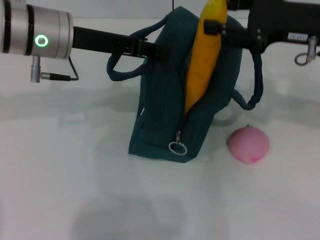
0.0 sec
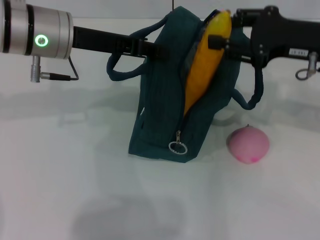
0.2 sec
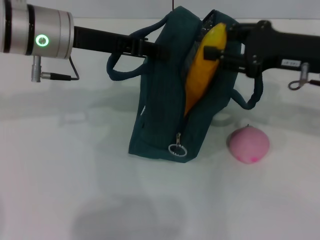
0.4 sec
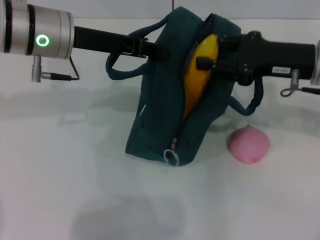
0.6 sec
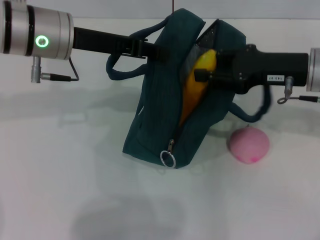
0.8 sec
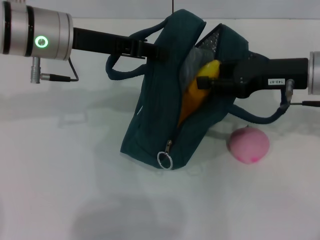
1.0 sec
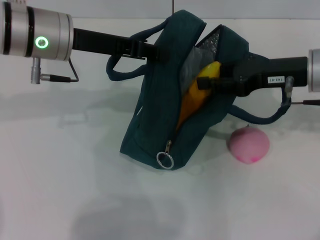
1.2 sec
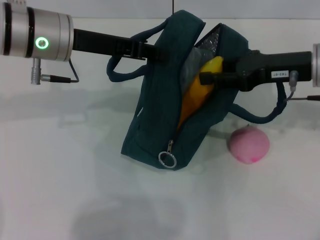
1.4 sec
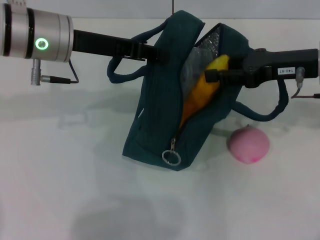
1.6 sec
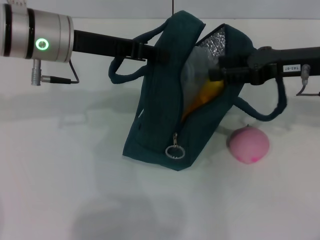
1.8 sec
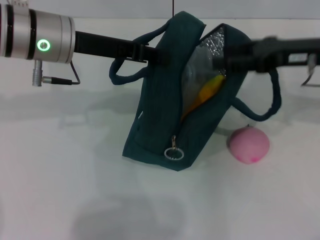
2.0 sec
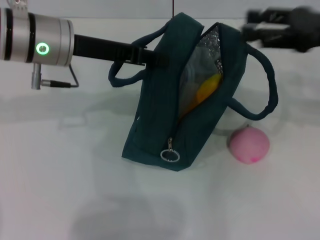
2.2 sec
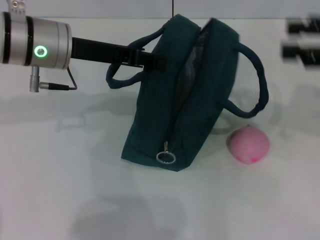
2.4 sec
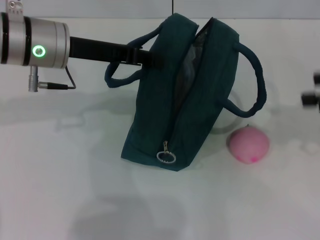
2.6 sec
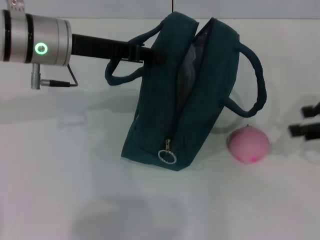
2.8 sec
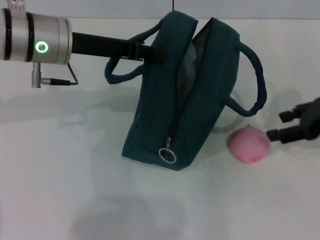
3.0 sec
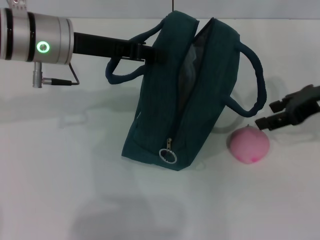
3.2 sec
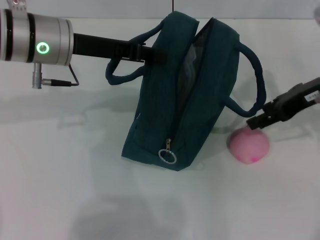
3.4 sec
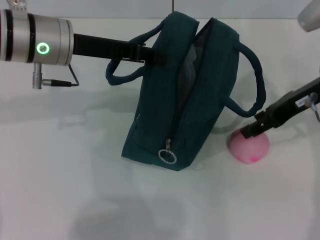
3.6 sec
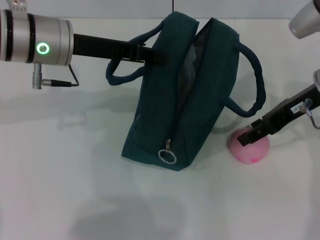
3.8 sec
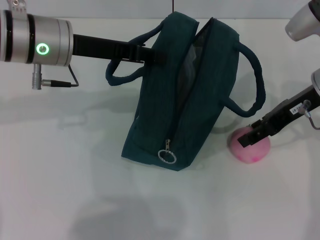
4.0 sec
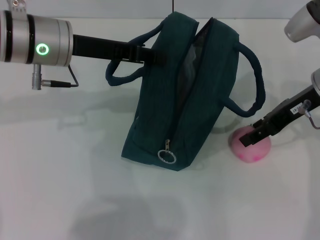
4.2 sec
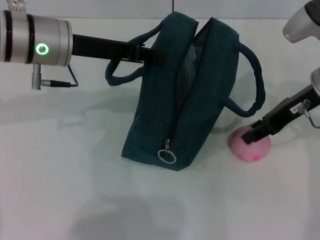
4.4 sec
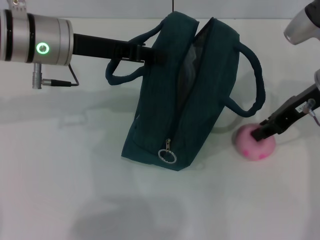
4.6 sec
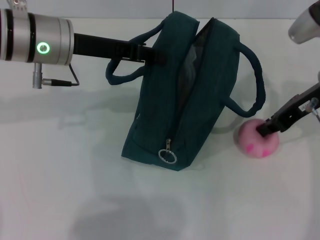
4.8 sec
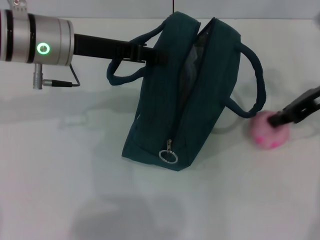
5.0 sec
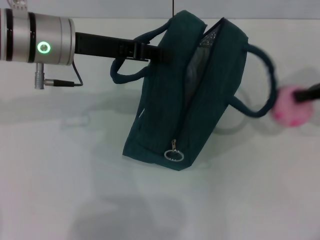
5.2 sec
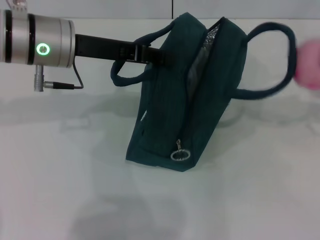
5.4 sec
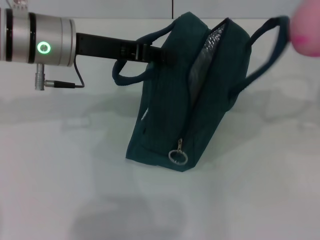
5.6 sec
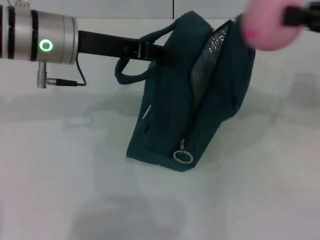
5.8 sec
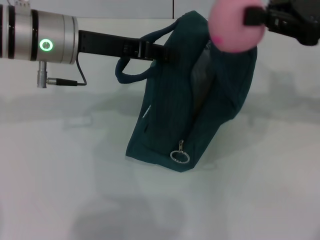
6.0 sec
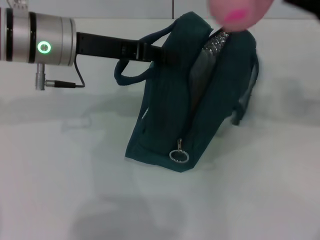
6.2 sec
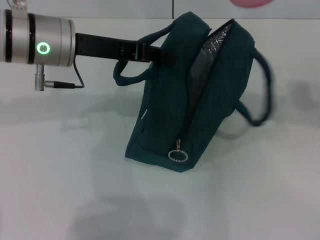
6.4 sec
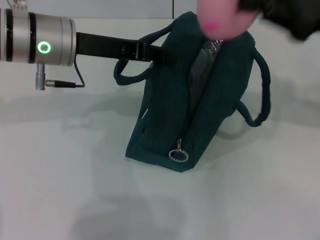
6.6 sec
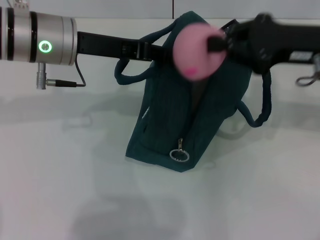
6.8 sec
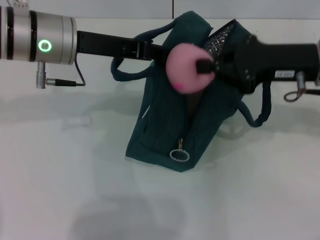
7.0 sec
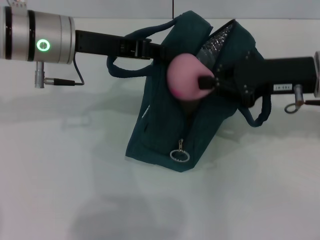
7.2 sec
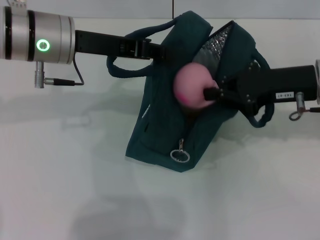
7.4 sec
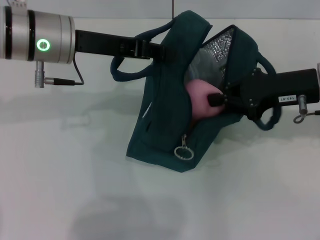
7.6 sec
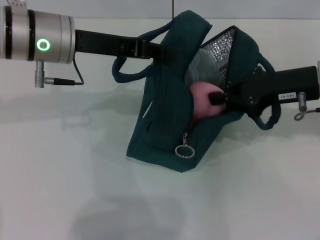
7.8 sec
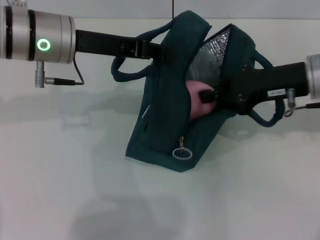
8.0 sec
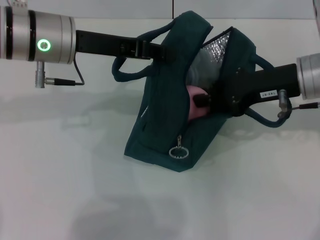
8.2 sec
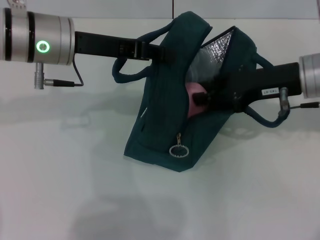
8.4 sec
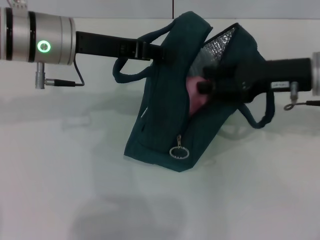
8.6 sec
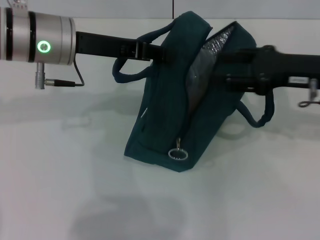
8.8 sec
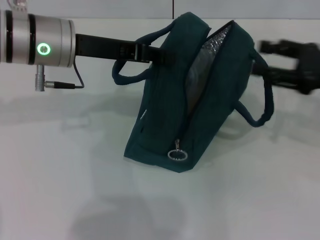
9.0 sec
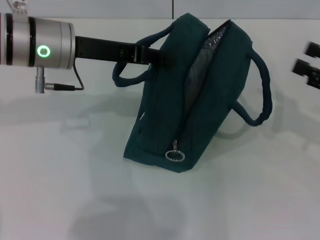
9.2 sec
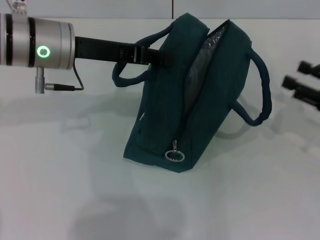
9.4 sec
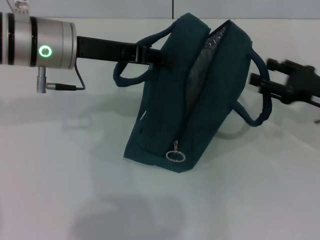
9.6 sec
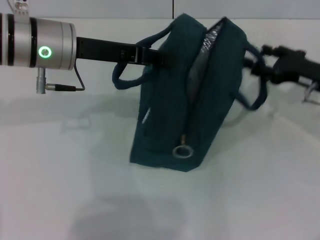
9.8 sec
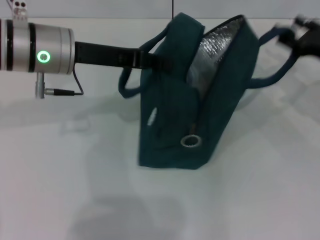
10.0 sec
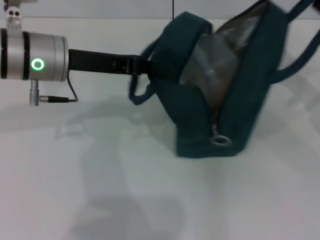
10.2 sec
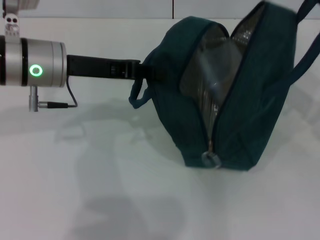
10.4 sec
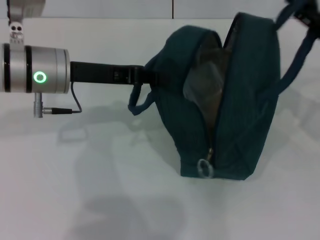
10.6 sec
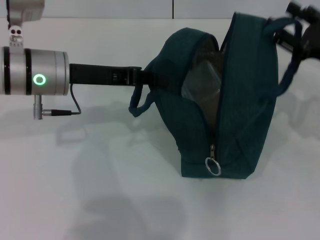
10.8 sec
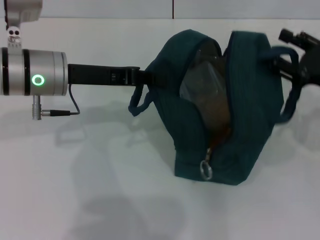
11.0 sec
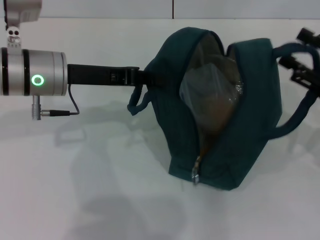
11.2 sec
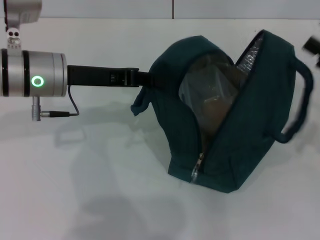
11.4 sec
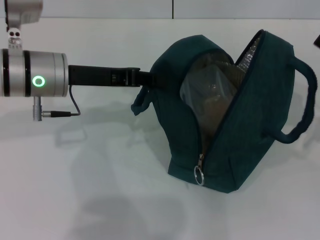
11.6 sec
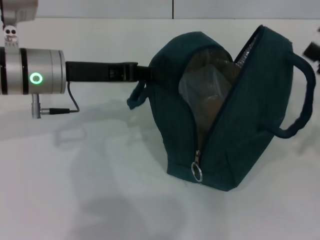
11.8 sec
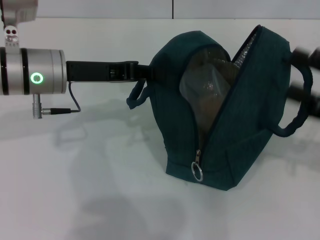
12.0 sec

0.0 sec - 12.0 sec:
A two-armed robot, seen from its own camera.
Step, 0.0 sec - 2.0 sec: Put the banana into the lunch bag with your right hand.
Step, 2.2 sec - 4.4 sec: Grab the peach with your right hand.
Step, 9.0 sec - 11.4 sec: Hold the lunch bag with your right hand.
1.6 sec - 3.0 sec: The right gripper goes roughly 5 cm to the right.
3.0 sec - 4.4 sec: The right gripper moves to the left, some 5 cm.
4.4 sec - 6.0 sec: The right gripper goes some 5 cm upward, moves about 15 cm to the right and comes back, and closes its fingers.
6.0 sec - 7.6 sec: The right gripper heads downward, covering some 10 cm.
7.6 sec - 9.0 sec: The right gripper travels to the right by some 5 cm, and opens.
9.0 sec - 10.4 sec: The right gripper reaches approximately 5 cm forward, then returns.
10.4 sec - 12.0 sec: The right gripper moves backward, some 5 cm.

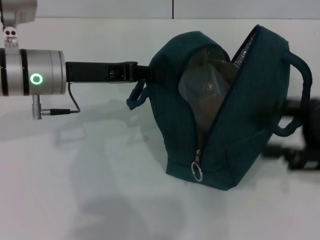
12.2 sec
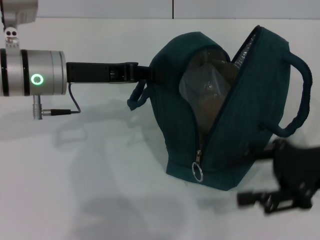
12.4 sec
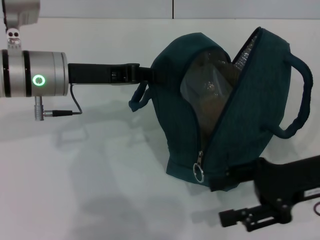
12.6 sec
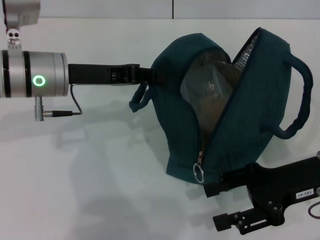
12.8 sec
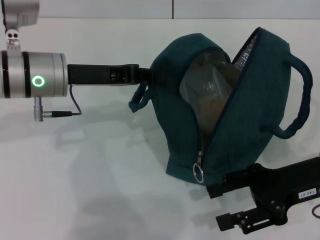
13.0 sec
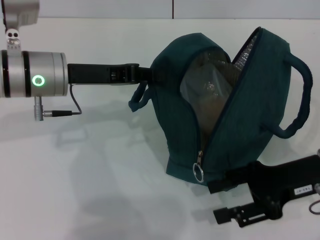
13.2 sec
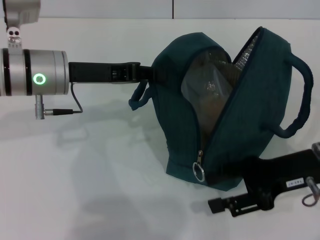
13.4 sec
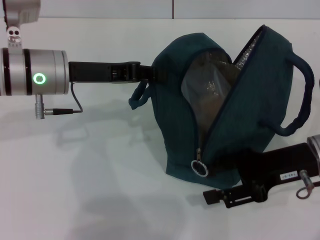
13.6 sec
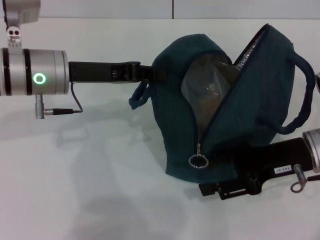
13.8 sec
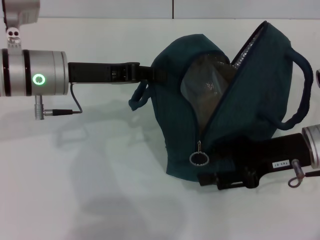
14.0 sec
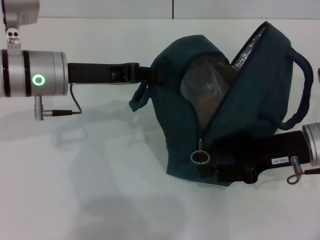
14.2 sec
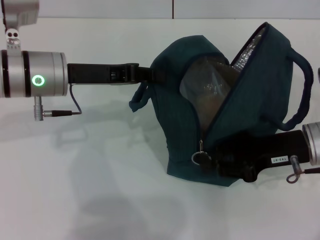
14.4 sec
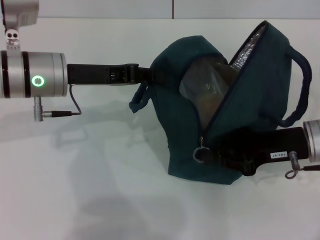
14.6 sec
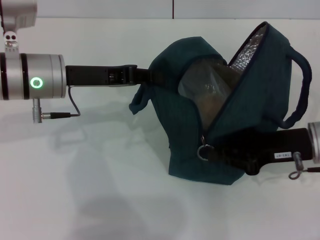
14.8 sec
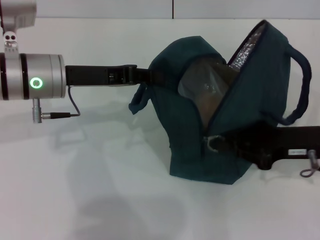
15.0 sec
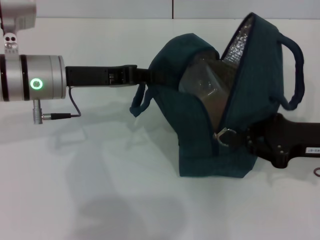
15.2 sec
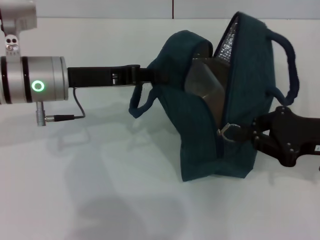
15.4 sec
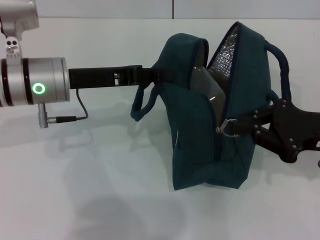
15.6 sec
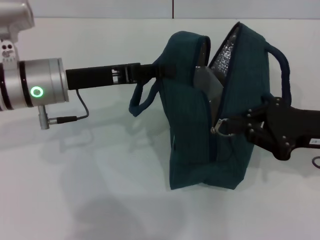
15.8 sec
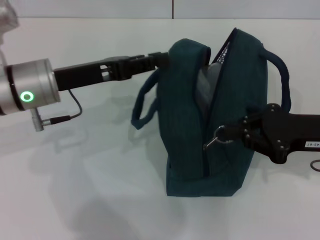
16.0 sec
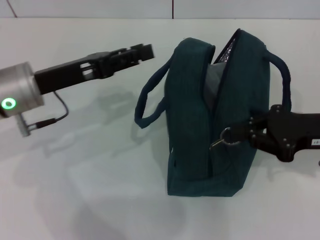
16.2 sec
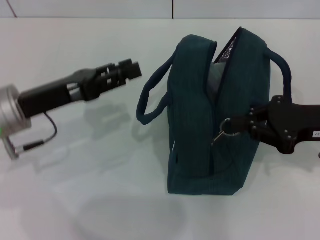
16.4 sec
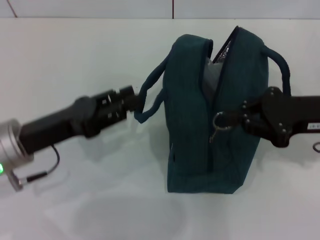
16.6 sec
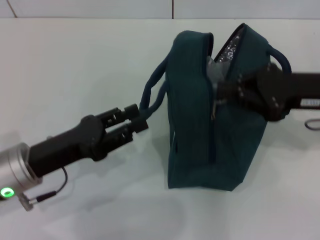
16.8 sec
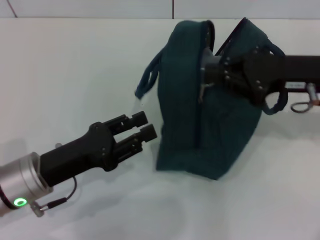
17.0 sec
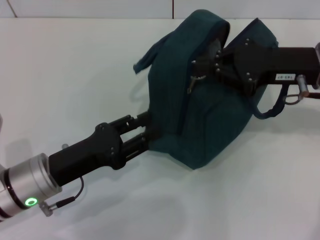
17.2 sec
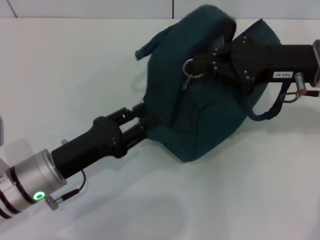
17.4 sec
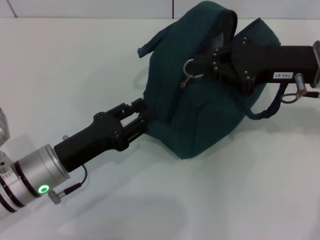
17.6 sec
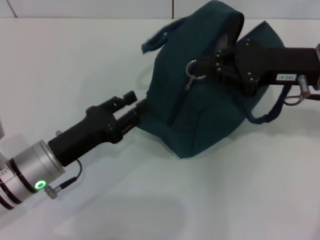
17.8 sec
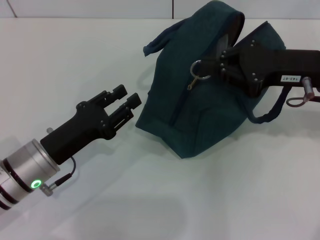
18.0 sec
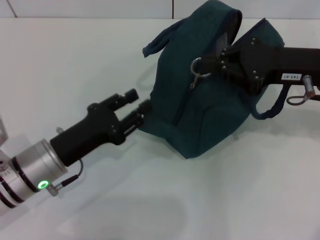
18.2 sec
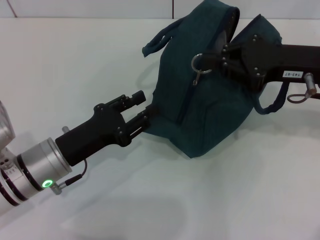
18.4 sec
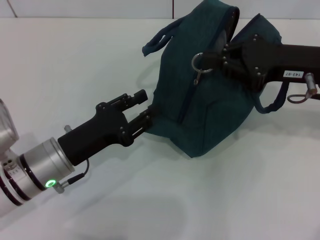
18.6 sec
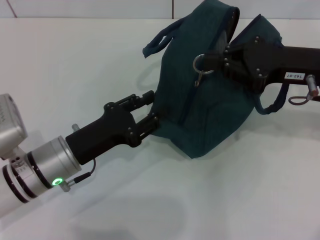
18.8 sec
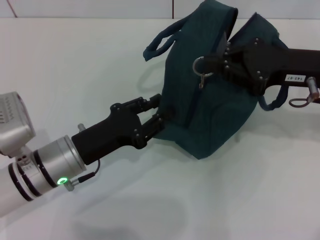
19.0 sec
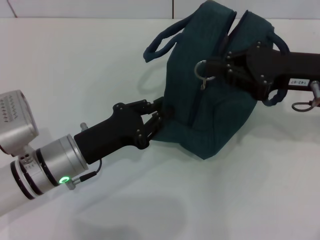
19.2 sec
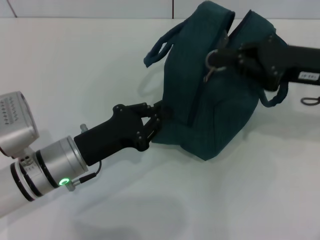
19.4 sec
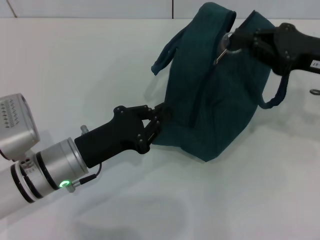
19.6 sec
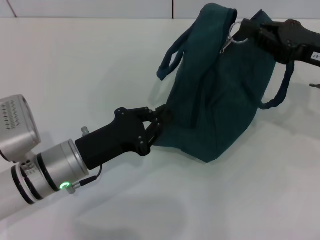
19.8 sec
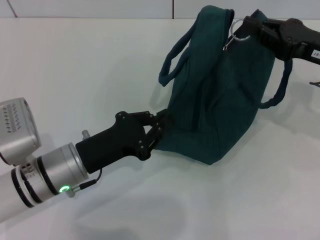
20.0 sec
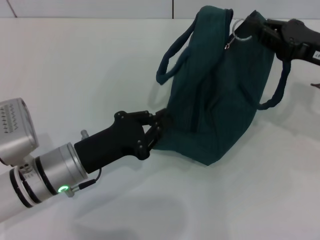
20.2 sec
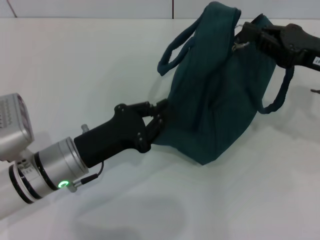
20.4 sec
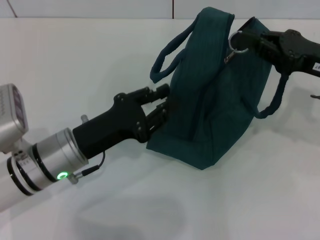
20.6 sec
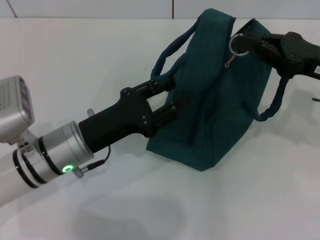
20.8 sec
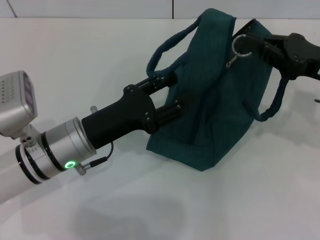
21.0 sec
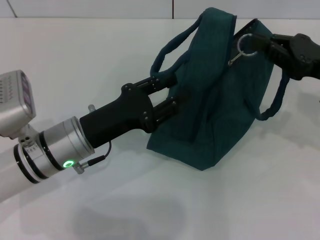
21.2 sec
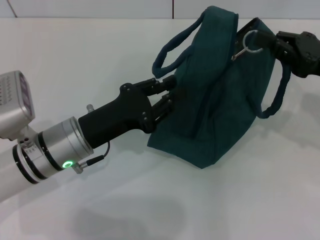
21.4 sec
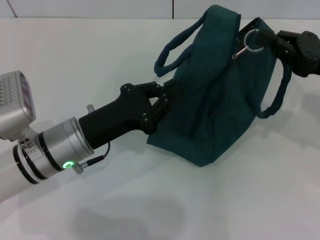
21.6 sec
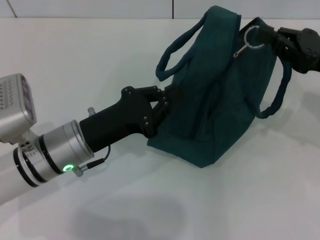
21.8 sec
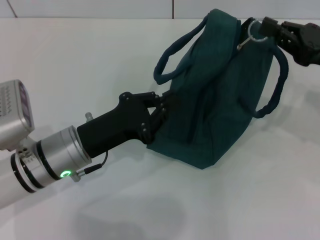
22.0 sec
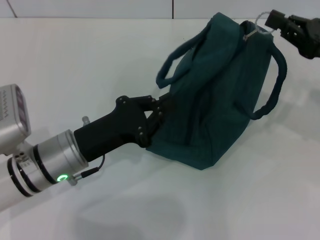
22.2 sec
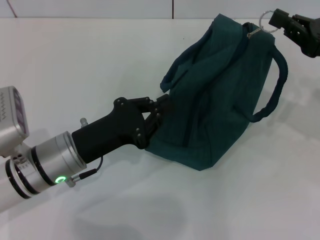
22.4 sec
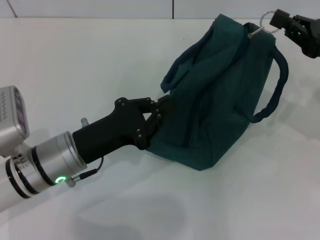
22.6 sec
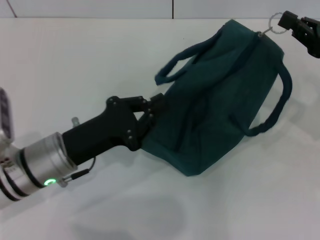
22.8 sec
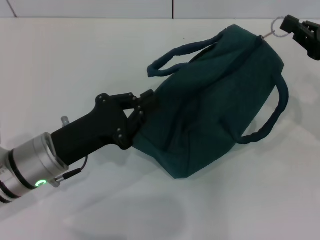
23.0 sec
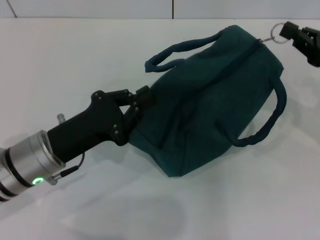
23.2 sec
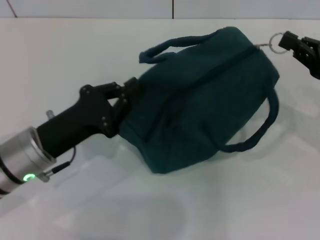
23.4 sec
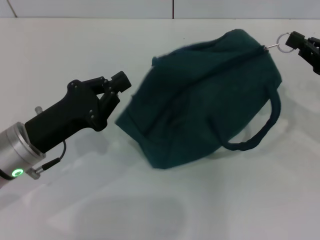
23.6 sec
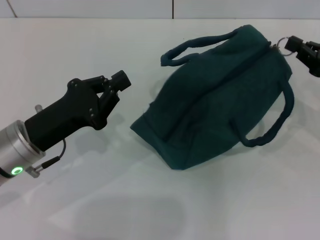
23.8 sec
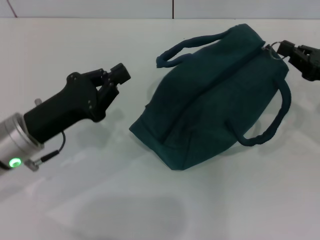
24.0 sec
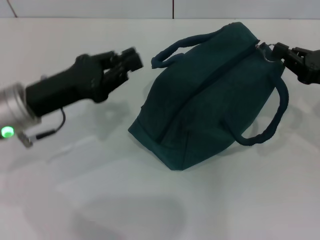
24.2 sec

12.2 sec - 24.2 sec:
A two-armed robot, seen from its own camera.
Step, 12.2 sec - 16.8 sec: Hold the lunch bag with your left hand.
12.2 sec - 13.8 sec: The right gripper is displaced to the left by roughly 5 cm.
13.8 sec - 15.2 sec: The right gripper closes.
15.2 sec - 16.6 sec: The left gripper shifts approximately 10 cm backward, and opens its fingers.
16.6 sec - 18.2 sec: The right gripper moves roughly 5 cm, while the left gripper heads downward, covering some 5 cm.
18.2 sec - 19.8 sec: The left gripper closes its fingers.
19.8 sec - 21.2 sec: The left gripper opens up.
21.2 sec - 22.6 sec: The left gripper closes up.
22.6 sec - 24.2 sec: The left gripper heads upward, covering some 5 cm.
